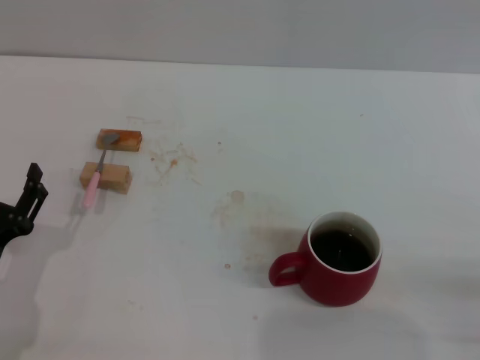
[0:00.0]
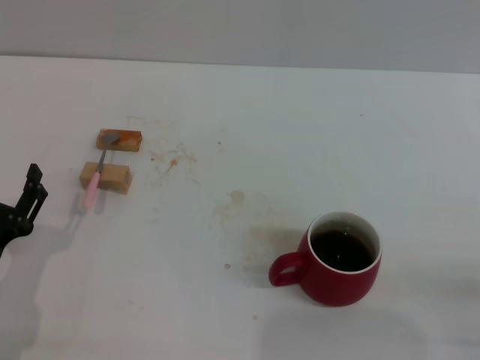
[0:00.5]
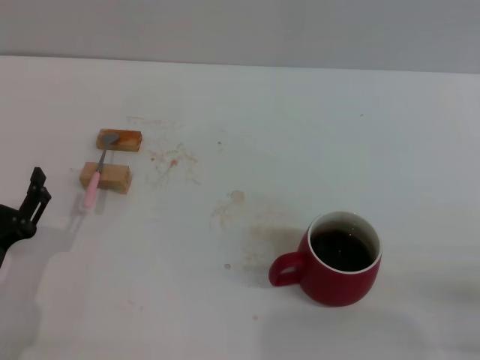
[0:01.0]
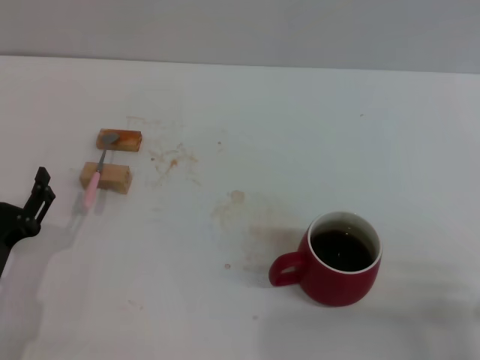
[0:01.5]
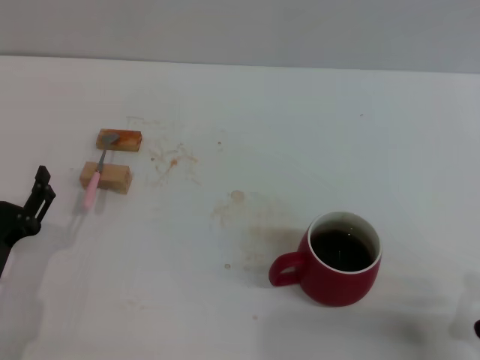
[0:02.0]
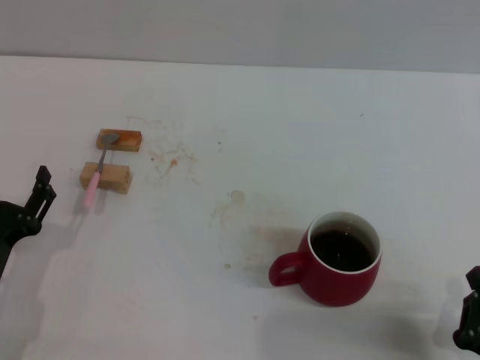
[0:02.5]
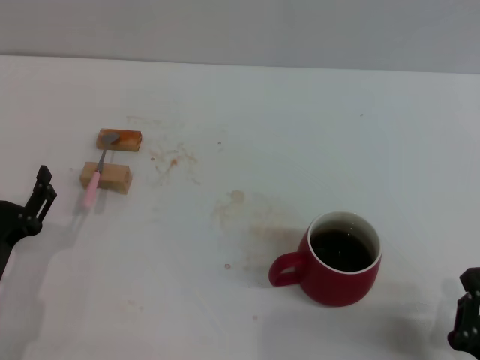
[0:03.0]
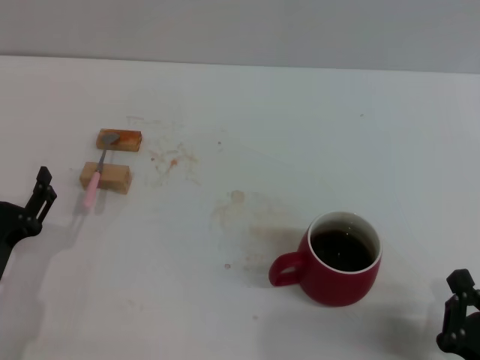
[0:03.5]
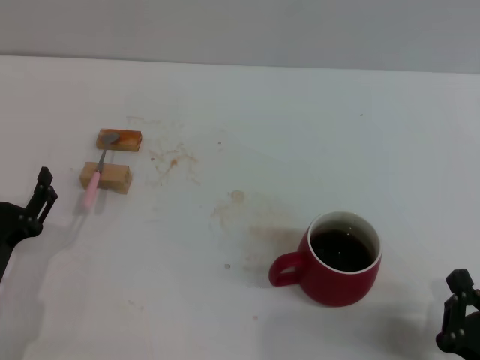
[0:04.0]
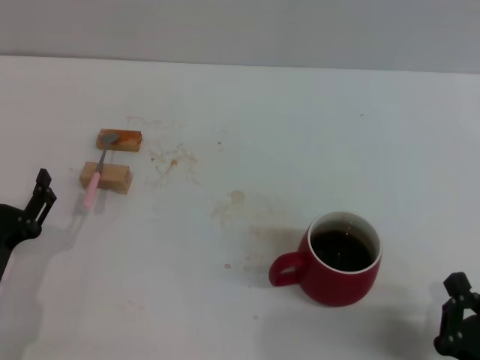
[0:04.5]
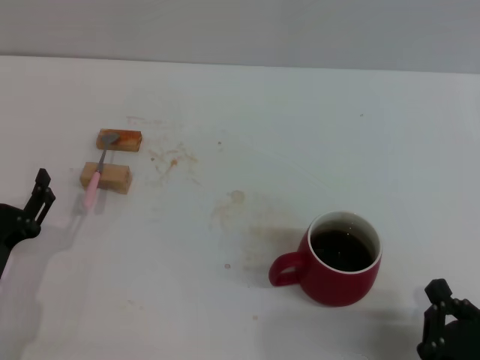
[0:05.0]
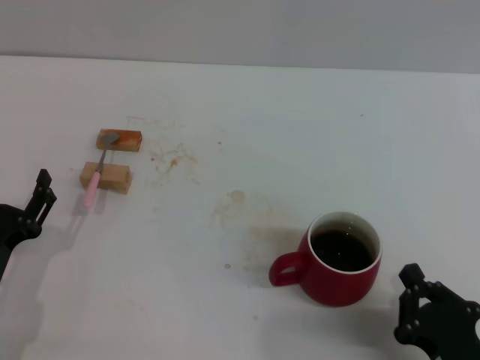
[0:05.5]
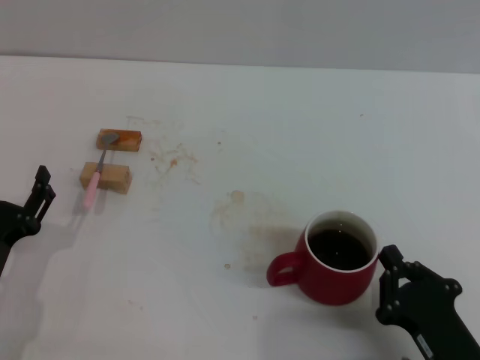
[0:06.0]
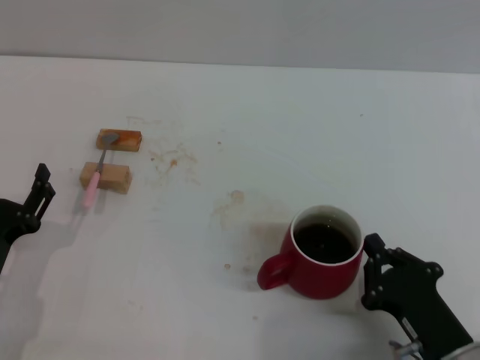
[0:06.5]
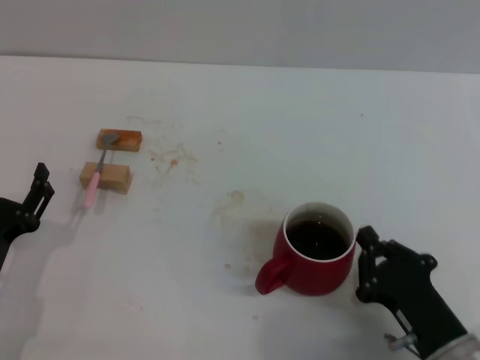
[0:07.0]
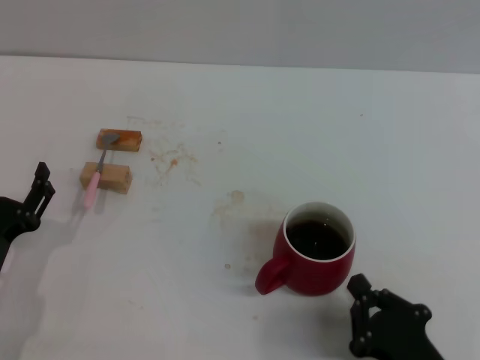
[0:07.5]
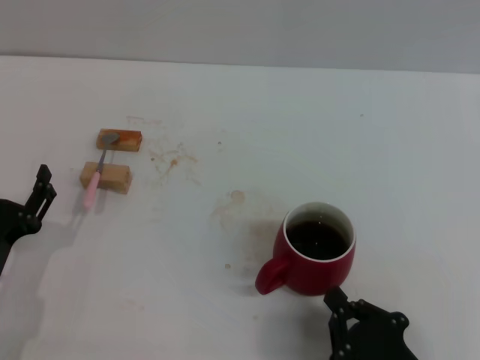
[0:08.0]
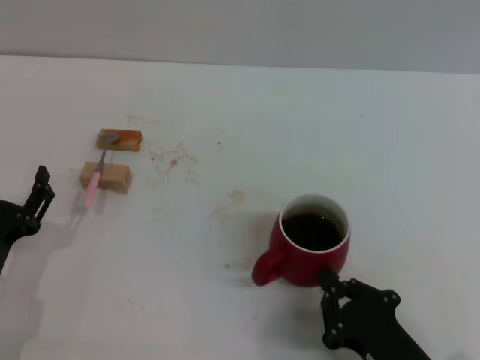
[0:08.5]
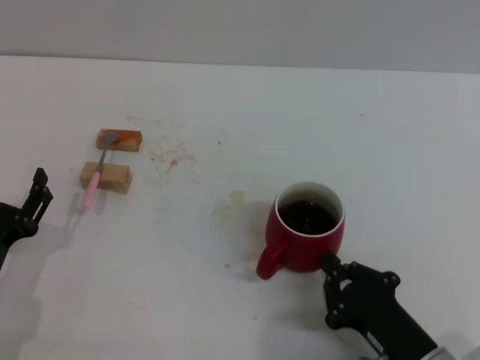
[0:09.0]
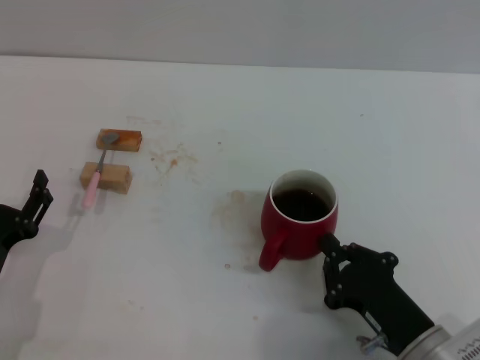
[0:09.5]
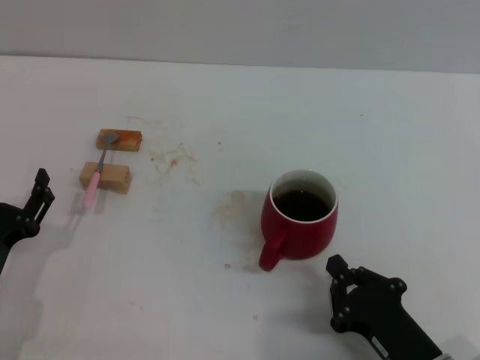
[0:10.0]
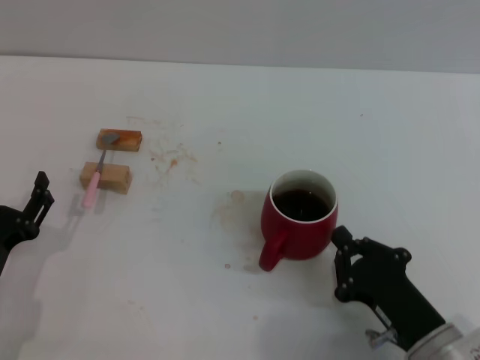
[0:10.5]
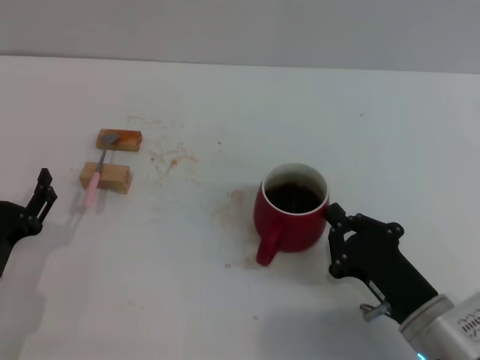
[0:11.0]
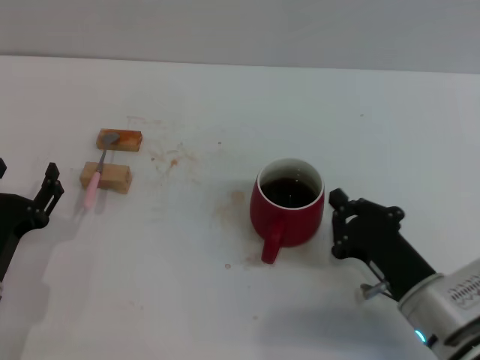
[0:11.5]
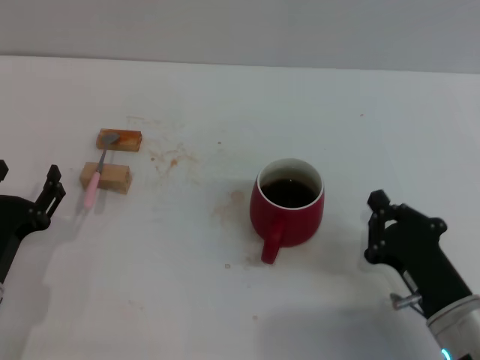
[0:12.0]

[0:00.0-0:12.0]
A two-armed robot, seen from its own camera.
Task of the whole recording: Move the red cup to the center, lift the pink spoon, stir it three times in the cup, and put the spoon into the cup.
0:00.0 to 0:02.0: The right gripper goes some 5 cm to the left.
0:02.0 to 0:06.0: The grippers make only small movements.
0:06.0 to 0:08.0: The grippers stay close to where they were, moving slightly.
0:10.0 to 0:12.0: The right gripper shifts by about 5 cm.

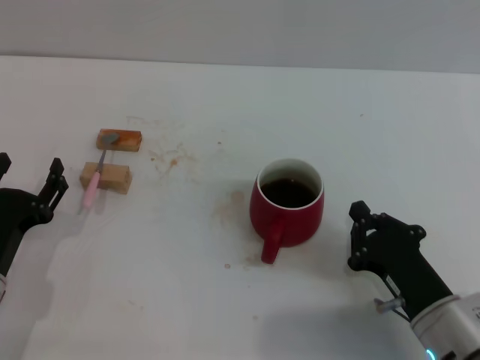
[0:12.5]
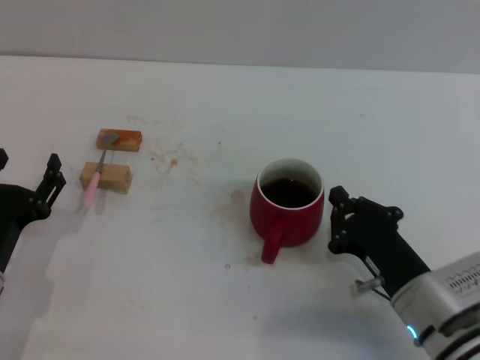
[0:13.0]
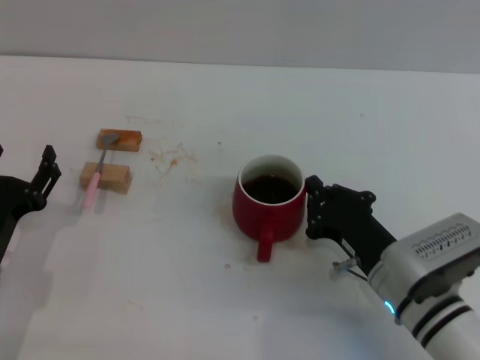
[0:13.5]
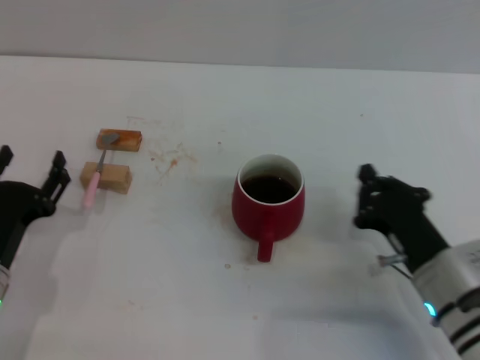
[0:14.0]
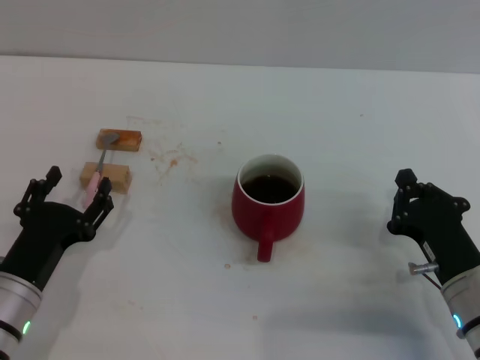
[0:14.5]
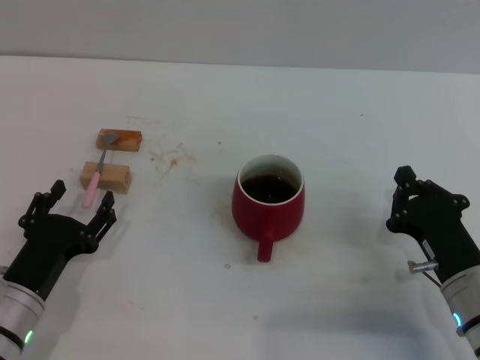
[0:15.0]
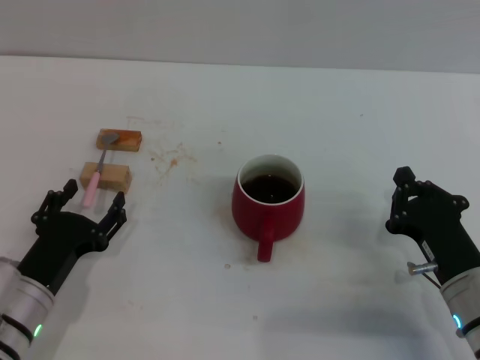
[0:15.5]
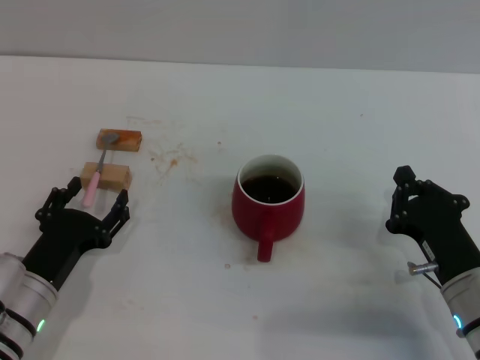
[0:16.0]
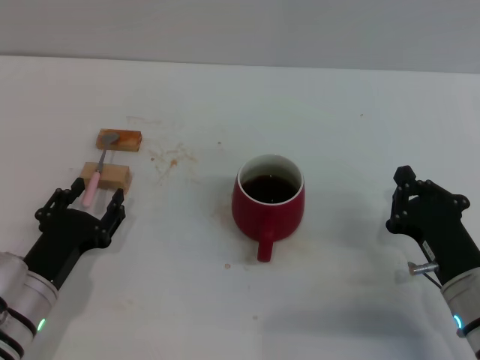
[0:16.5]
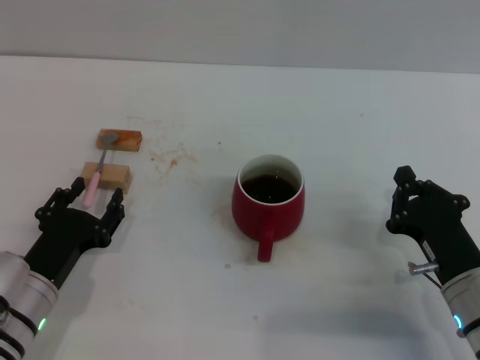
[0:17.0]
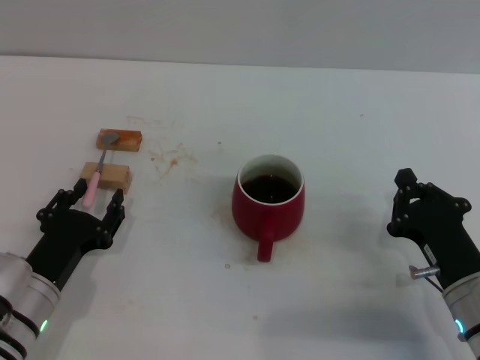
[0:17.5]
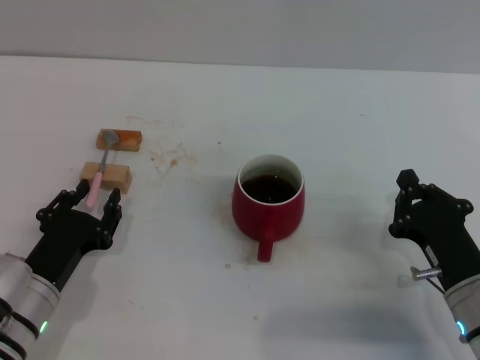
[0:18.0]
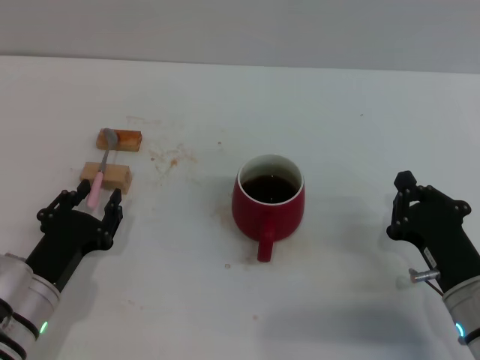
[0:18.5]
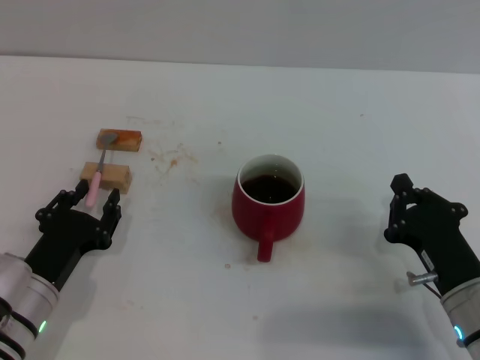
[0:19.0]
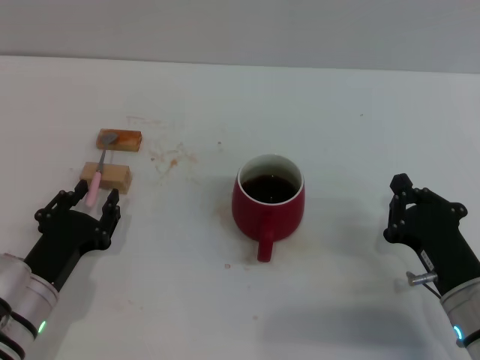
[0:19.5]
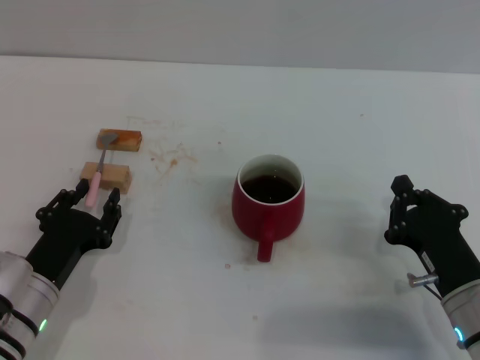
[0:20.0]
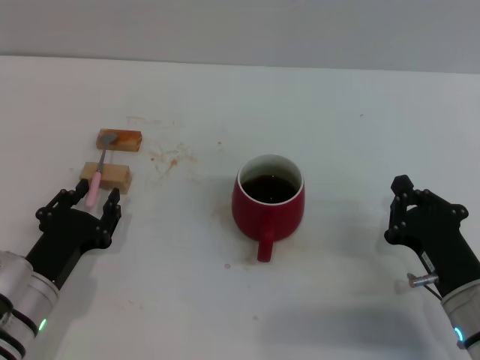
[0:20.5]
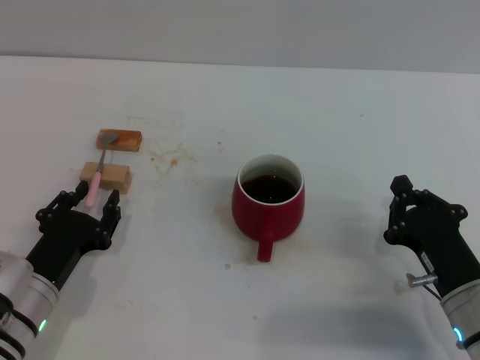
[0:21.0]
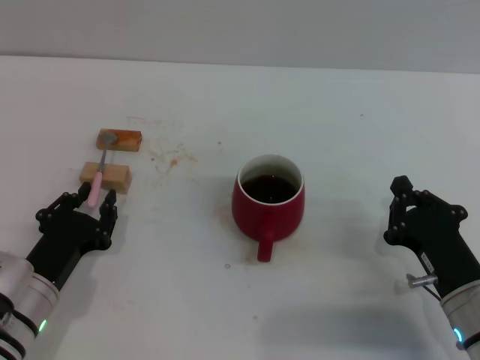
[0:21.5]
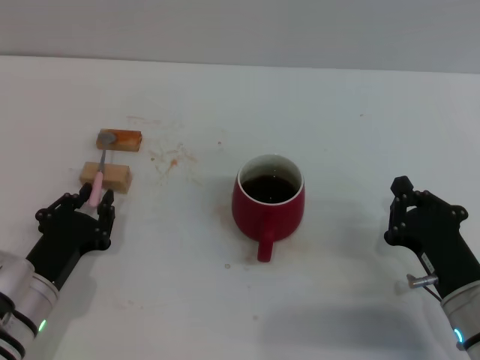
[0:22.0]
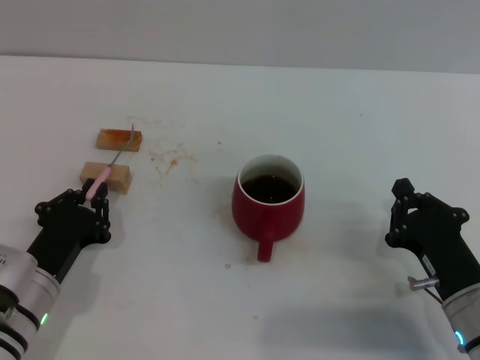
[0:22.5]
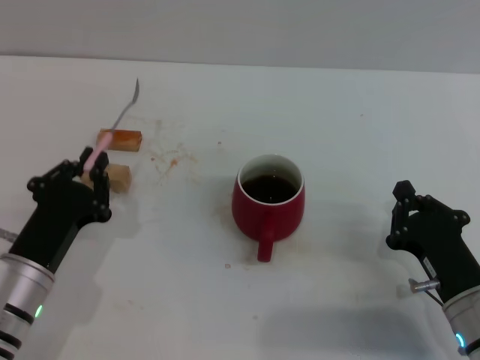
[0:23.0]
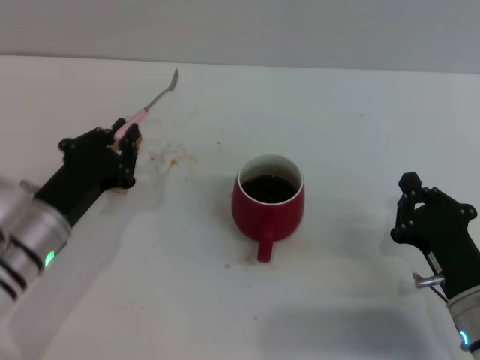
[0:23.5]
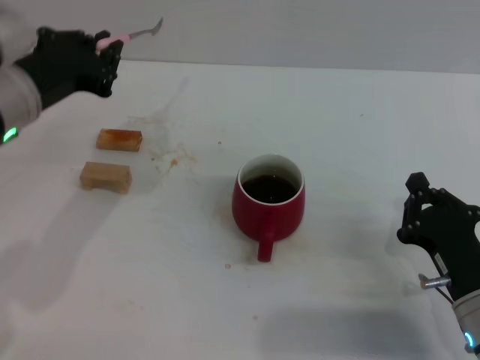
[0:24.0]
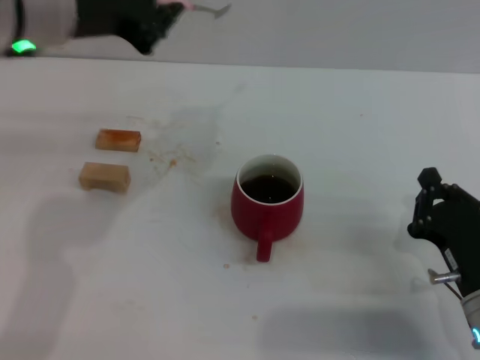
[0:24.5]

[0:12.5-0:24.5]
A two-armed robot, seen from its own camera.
Task of the whole recording: Move the red cup to the center, lift the pink spoon, stir it three times in the cup, and put the spoon into the cup.
Step, 0:14.0 to 0:24.0: Pick up the spoon with the left gripper.
0:14.5 to 0:16.5: The grippers make only small movements.
0:16.5 to 0:20.5: The two grippers keep their place.
0:20.5 to 0:22.5: The left gripper closes.
0:22.5 to 0:24.5: The left gripper heads upward and forward, covering approximately 30 cm.

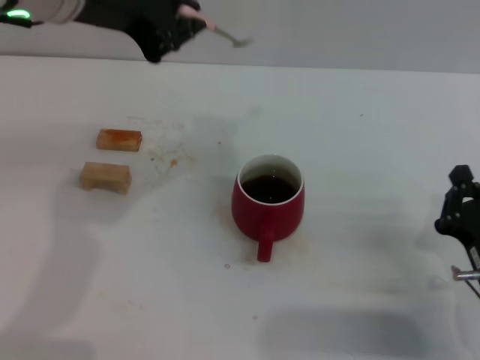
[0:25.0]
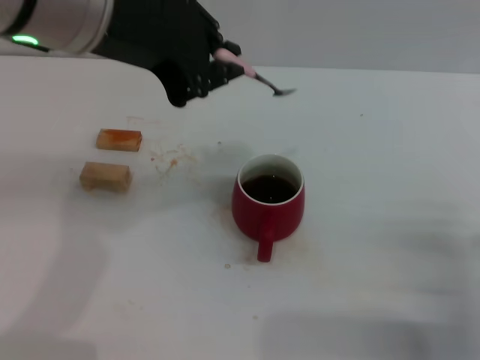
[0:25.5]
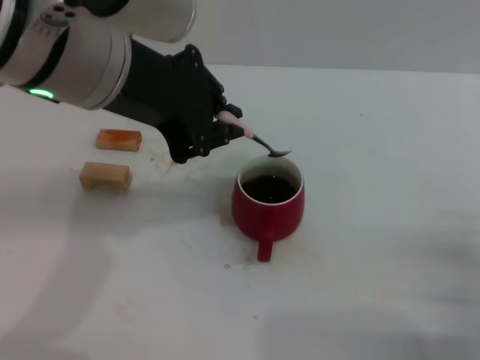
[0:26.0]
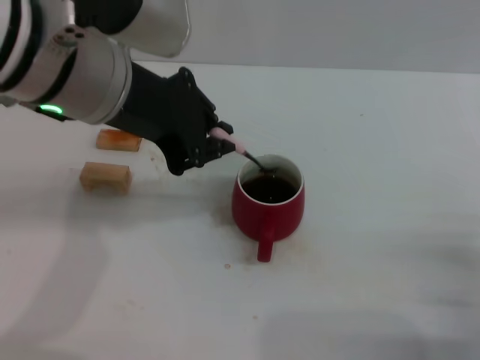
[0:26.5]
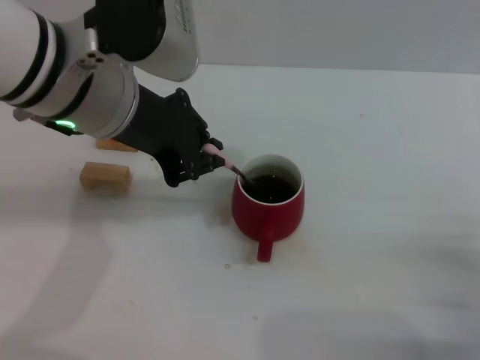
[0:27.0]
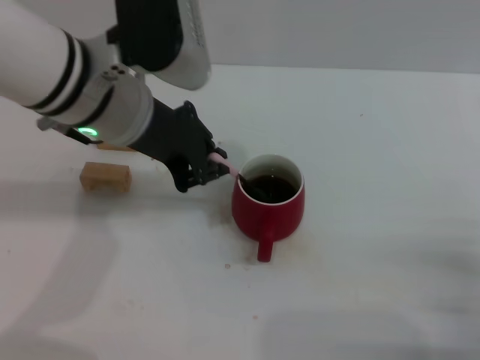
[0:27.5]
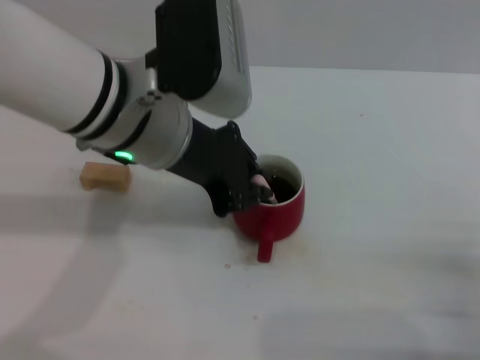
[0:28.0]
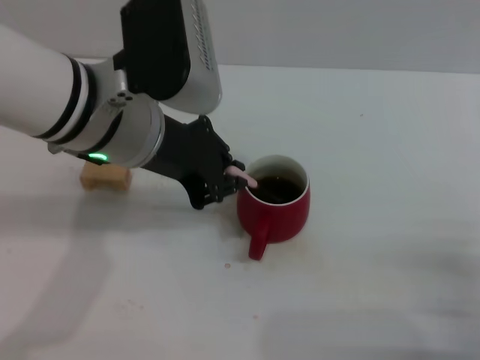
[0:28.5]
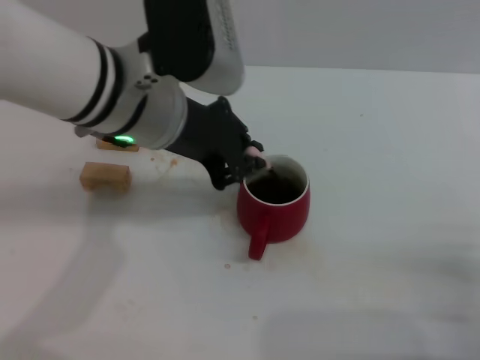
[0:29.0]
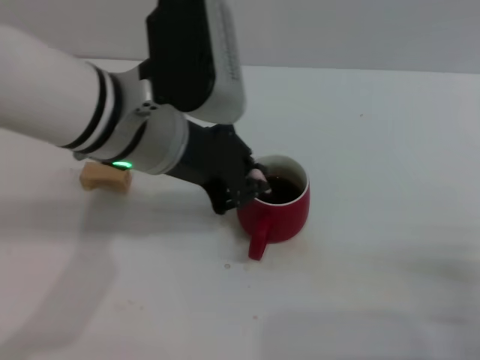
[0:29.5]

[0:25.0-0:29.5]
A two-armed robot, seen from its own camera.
Task of the whole recording: Move the red cup to the center, lift the pink spoon, stir it three times in the cup, and put the spoon into the cup.
0:25.0 to 0:27.0: The right gripper goes approximately 5 cm to the right, while the left gripper shifts approximately 5 cm downward.
